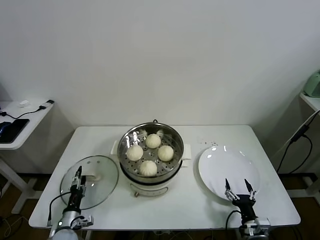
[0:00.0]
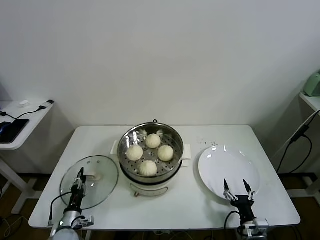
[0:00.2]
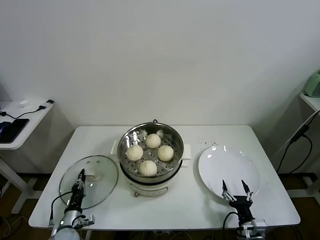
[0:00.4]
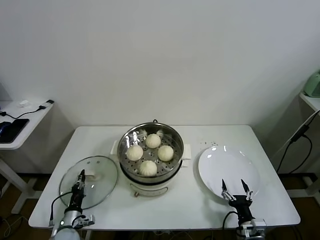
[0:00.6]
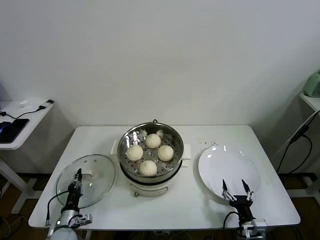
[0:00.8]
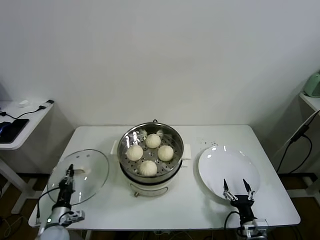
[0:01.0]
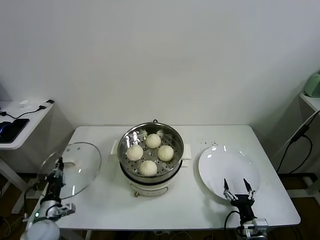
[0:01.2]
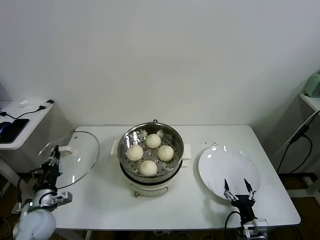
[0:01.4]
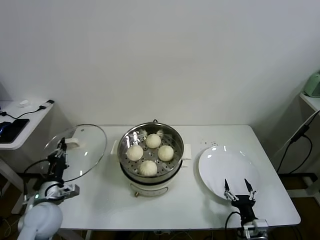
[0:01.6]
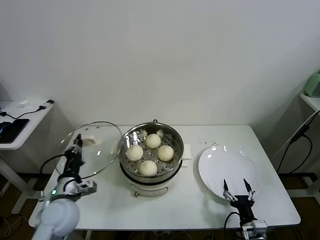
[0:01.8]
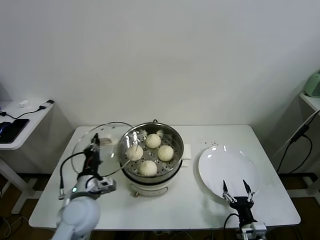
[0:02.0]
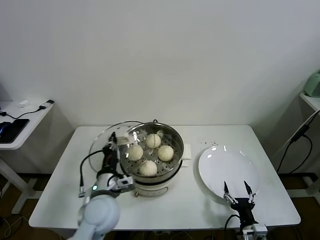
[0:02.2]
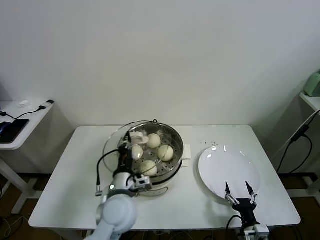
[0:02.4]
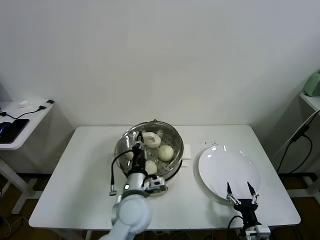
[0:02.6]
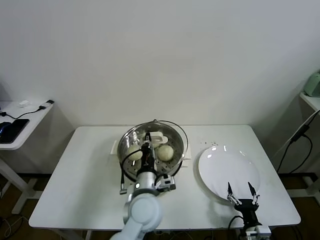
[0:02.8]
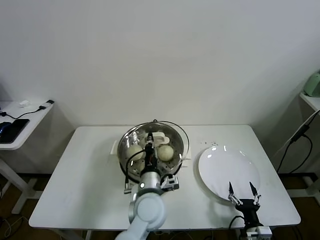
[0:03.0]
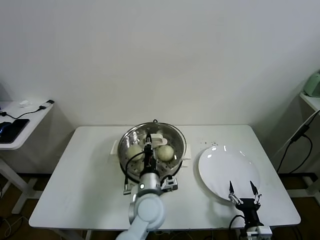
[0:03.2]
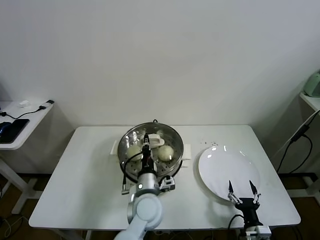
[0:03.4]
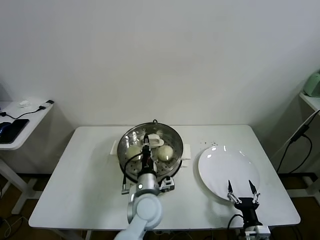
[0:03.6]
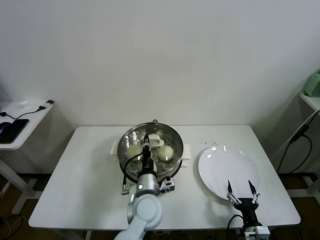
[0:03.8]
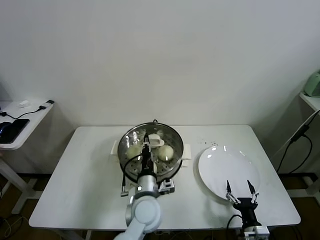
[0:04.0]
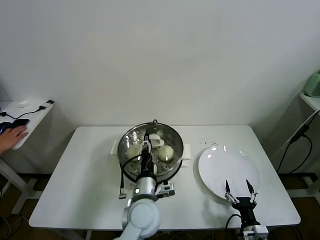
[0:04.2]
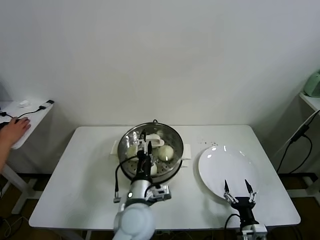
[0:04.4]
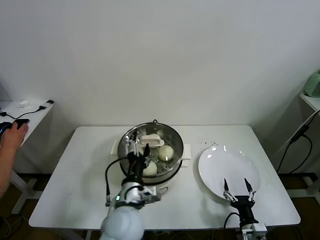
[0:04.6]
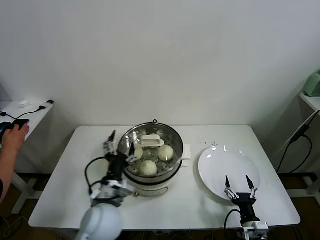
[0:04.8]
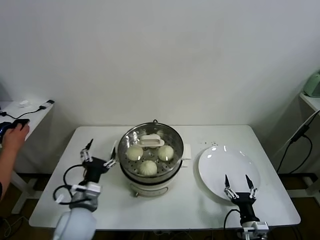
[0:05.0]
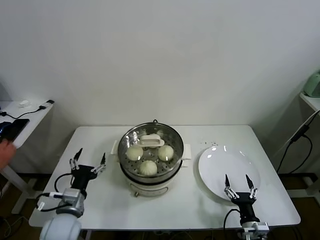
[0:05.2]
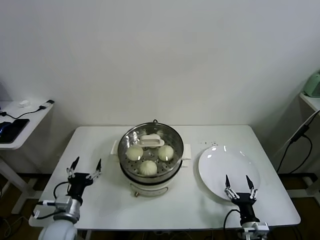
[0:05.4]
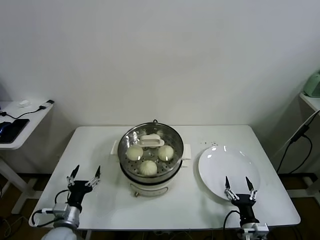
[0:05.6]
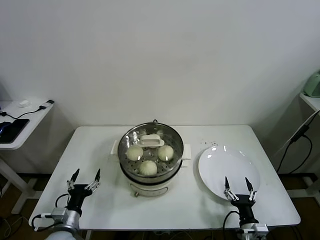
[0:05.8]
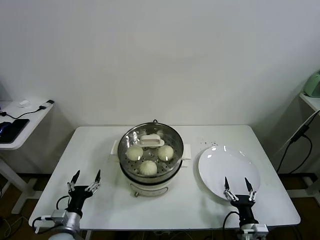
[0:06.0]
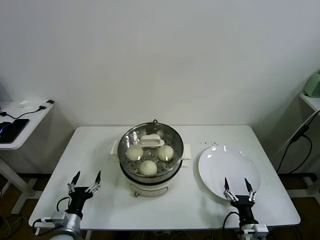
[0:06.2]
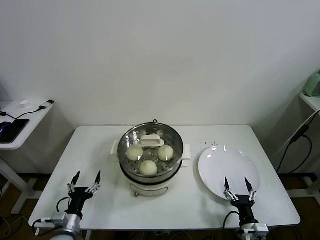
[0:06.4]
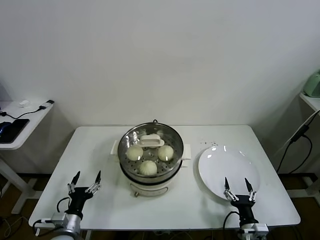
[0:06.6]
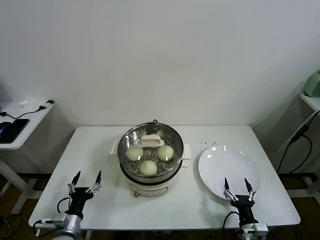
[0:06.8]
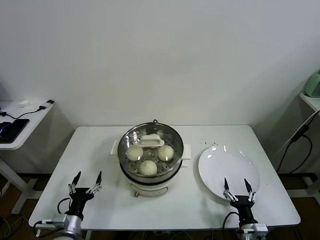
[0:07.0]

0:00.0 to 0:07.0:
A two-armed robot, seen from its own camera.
Task of the whole recording: take steamed baozi put them in steamer.
Step, 0:00.6 to 0:04.4: Place the pot lid on the steamer with left gripper.
0:00.0 to 0:01.4: The left gripper travels upward by some 15 cm, and closes.
0:01.4 to 0:02.8: The left gripper moves to the right, some 35 cm.
0:02.8 to 0:04.2: The left gripper opens its fingers.
0:04.2 to 0:05.6: The left gripper heads to the left, covering about 25 cm, and opens its fingers.
0:05.6 to 0:07.0: There are only small adjustments of the grippers.

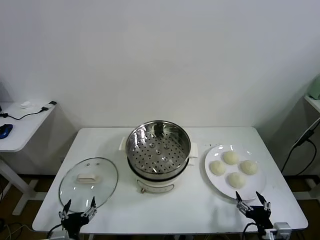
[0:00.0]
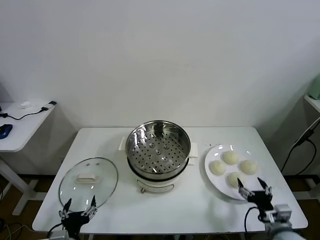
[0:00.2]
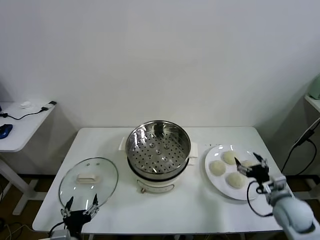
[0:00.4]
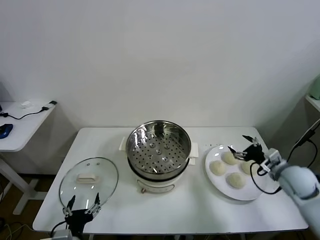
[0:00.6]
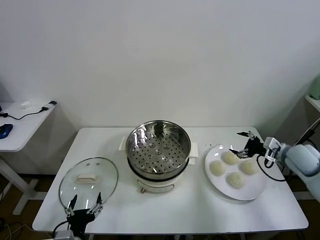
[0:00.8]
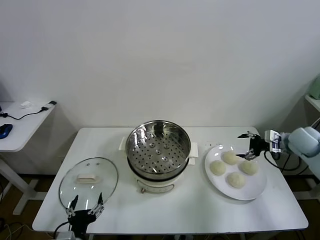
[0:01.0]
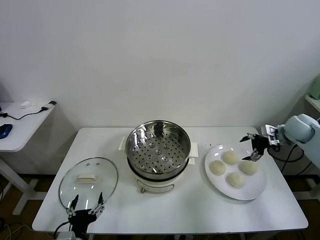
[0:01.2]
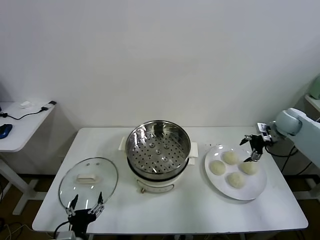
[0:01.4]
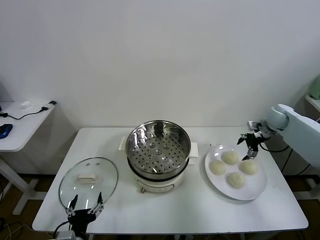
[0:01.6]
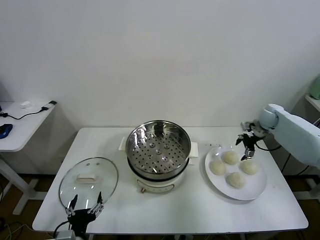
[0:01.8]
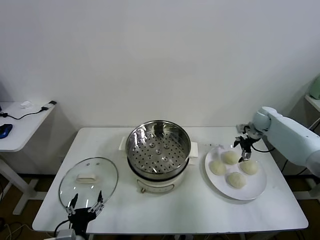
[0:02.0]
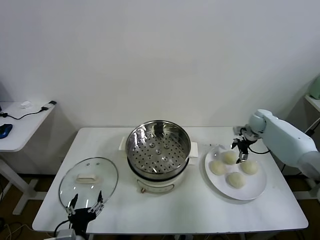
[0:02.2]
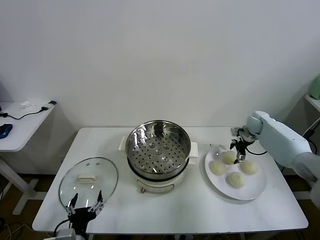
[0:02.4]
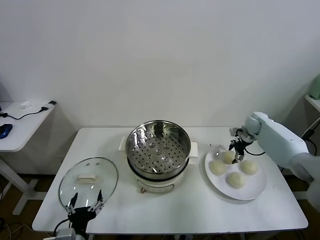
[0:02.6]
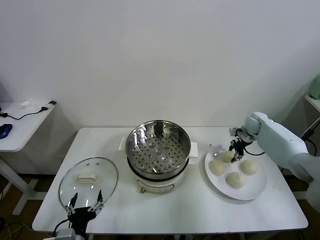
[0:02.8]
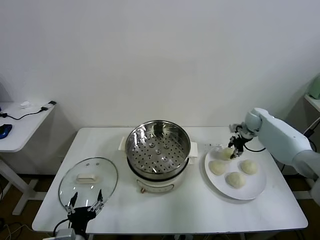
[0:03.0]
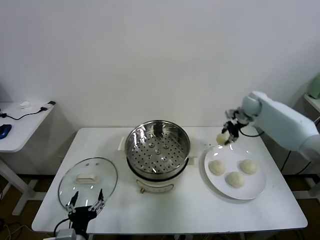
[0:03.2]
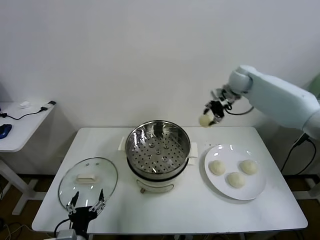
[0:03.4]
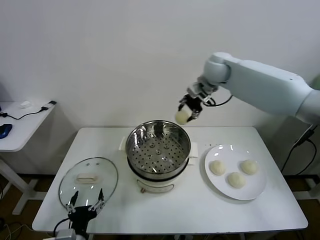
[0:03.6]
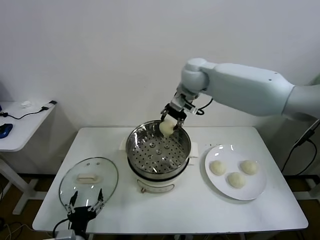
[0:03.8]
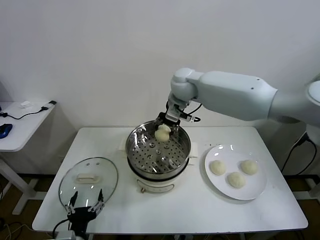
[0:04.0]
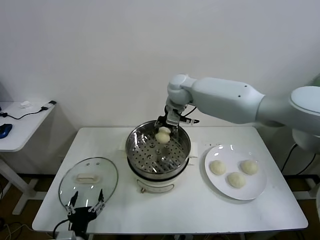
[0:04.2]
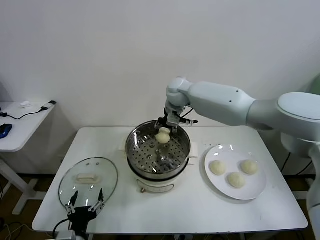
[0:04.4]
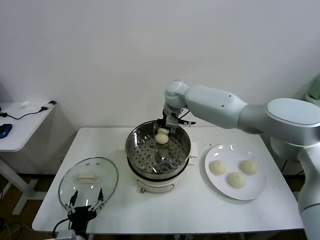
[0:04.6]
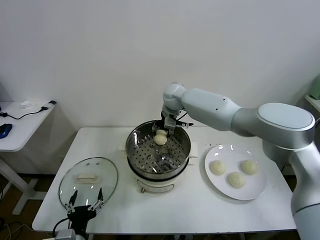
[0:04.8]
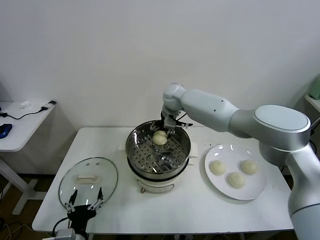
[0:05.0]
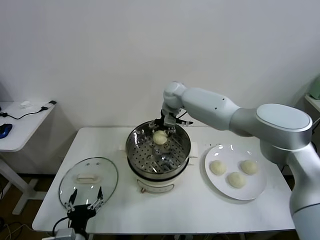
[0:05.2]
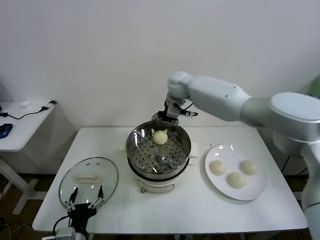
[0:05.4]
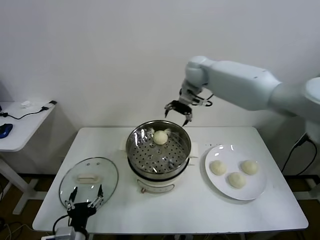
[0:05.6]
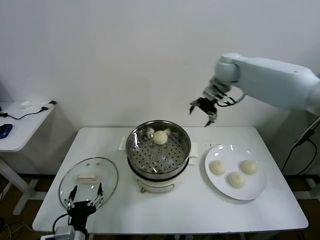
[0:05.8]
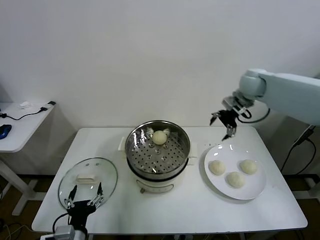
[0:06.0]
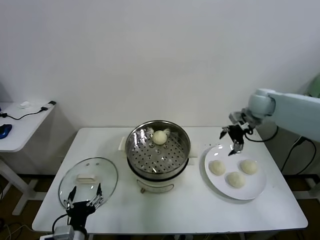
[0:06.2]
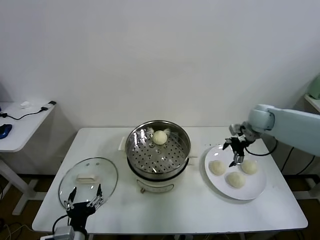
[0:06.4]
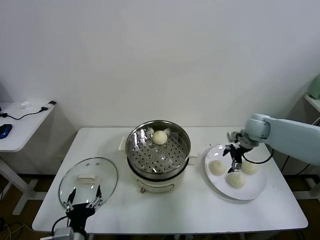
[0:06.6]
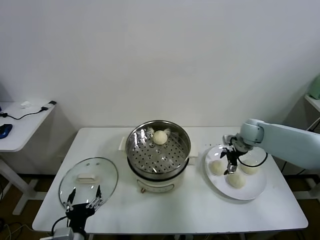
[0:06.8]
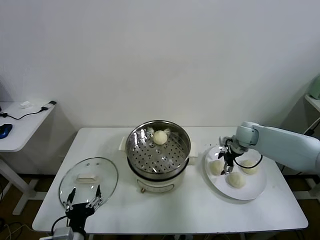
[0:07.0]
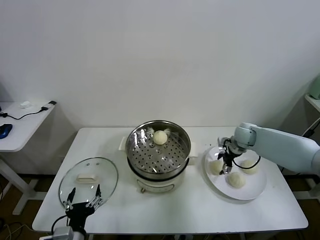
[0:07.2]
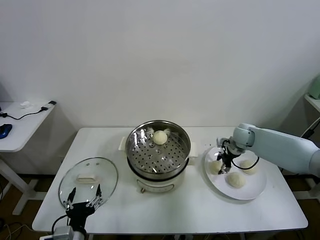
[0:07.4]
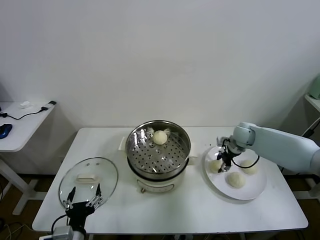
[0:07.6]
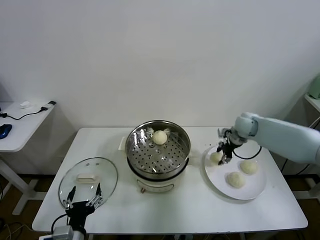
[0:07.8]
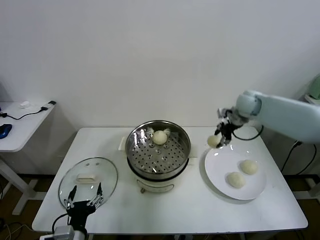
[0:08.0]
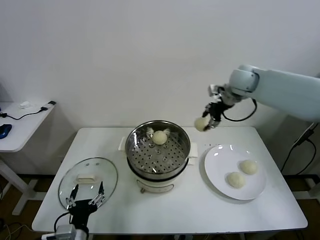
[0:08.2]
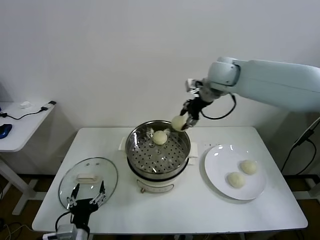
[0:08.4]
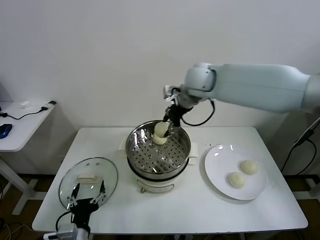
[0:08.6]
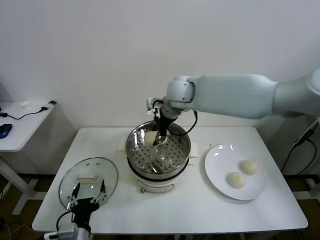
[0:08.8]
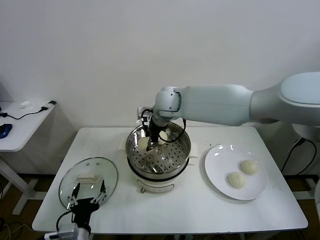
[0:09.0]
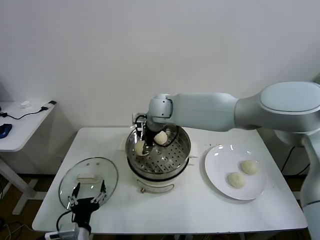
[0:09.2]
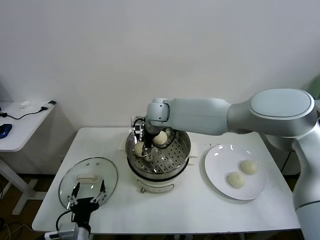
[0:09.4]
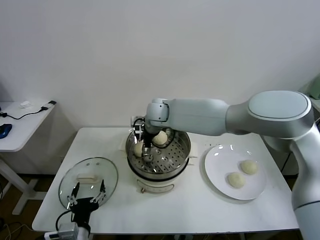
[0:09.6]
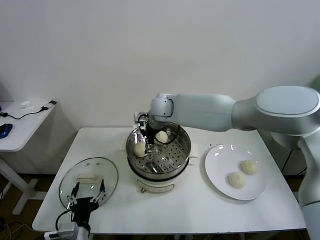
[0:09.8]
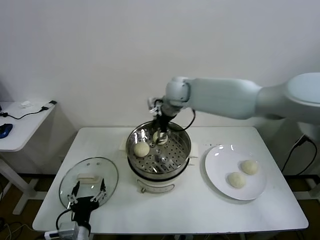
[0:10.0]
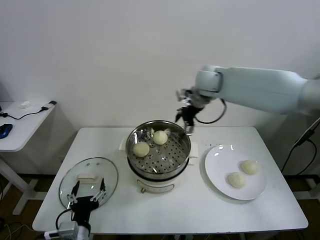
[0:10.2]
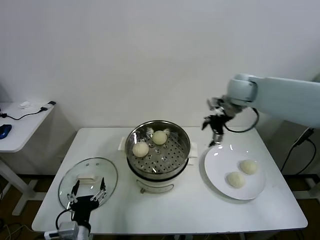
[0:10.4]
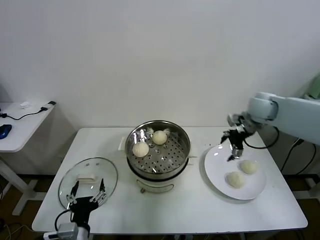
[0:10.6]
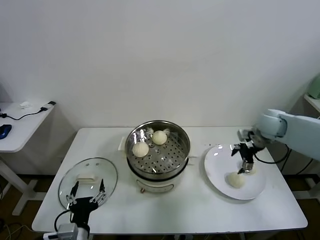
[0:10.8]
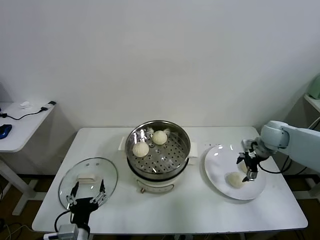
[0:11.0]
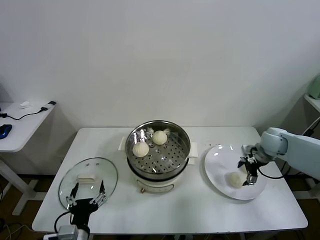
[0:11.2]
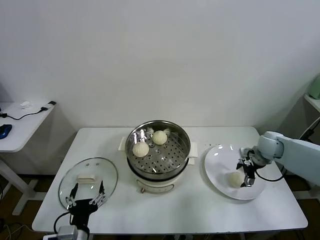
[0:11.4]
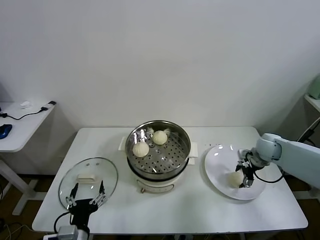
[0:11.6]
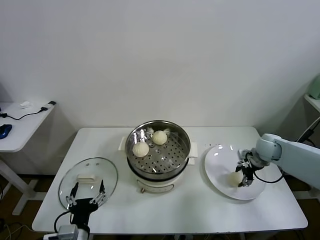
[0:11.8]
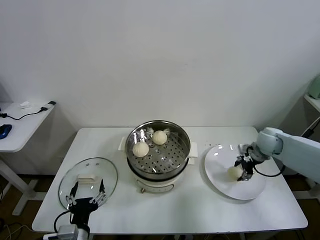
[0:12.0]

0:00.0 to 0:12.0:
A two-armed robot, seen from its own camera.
Task of the whole recording: take steamed baozi put them in steamer.
Step, 0:00.0 to 0:02.6: Grasp the baozi in the plate with right gripper.
Step, 0:02.8 to 0:05.0: Place the baozi on the steamer with right gripper.
Step, 0:05.2 to 0:07.2: Grasp the baozi in the plate with right gripper.
Step, 0:07.4 to 0:09.6: Place the baozi on the steamer with right gripper.
Step, 0:09.8 to 0:11.6: Grasp the baozi in the plate with right gripper.
0:01.6 to 0:03.0: The right gripper goes roughly 5 cm to the left, and closes.
0:03.0 to 0:04.4: The right gripper is displaced to the left by roughly 35 cm.
0:04.4 to 0:06.0: The right gripper moves to the right, about 25 cm, and opens its fingers.
0:06.0 to 0:07.6: The right gripper heads downward, covering approximately 15 cm, and closes.
0:07.6 to 0:09.0: The right gripper moves to the left and upward, some 35 cm.
0:09.0 to 0:10.4: The right gripper shifts roughly 25 cm to the right, and opens its fingers.
0:10.4 to 0:12.0: The right gripper shifts roughly 20 cm downward and to the right, and closes.

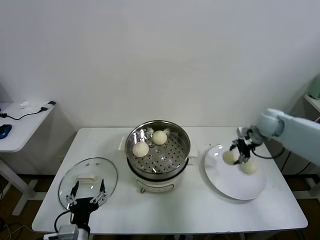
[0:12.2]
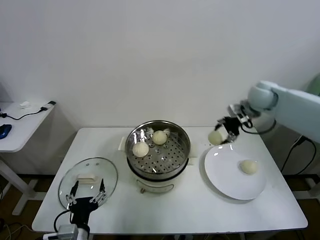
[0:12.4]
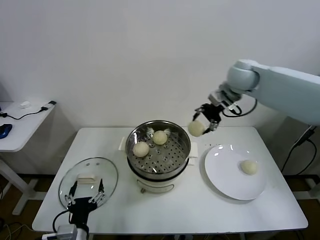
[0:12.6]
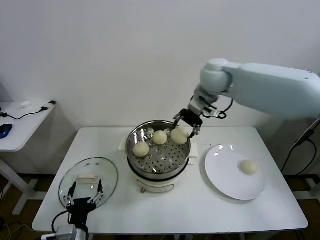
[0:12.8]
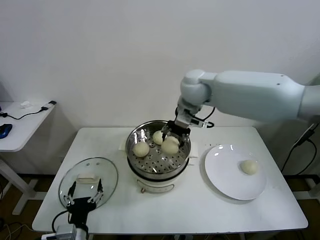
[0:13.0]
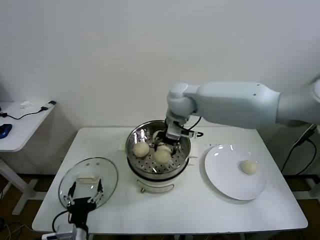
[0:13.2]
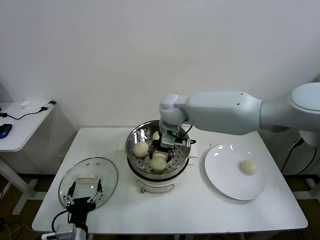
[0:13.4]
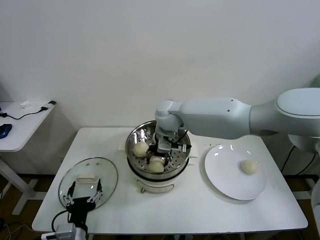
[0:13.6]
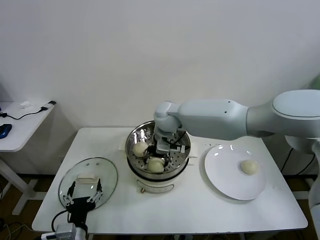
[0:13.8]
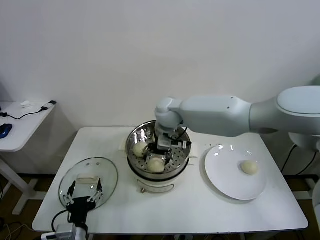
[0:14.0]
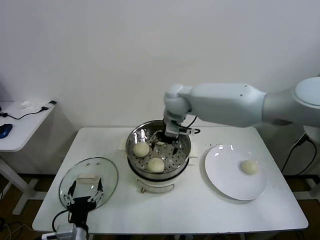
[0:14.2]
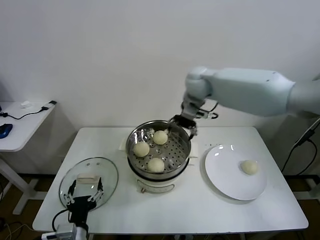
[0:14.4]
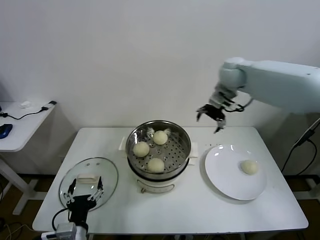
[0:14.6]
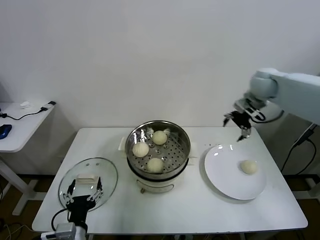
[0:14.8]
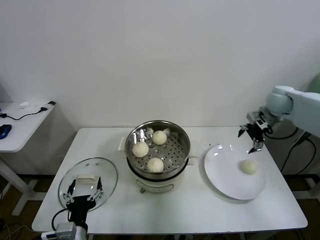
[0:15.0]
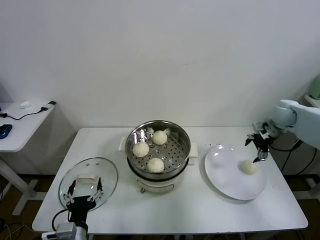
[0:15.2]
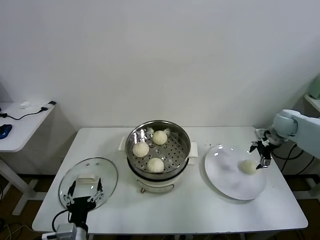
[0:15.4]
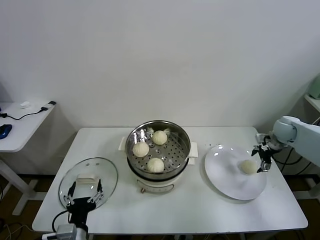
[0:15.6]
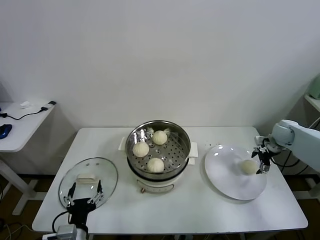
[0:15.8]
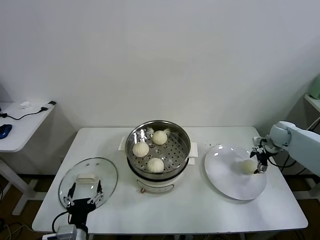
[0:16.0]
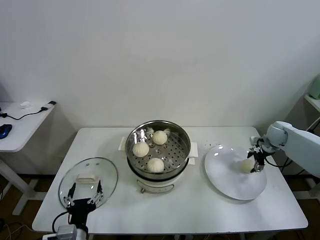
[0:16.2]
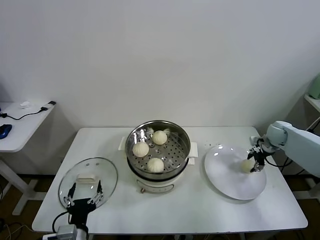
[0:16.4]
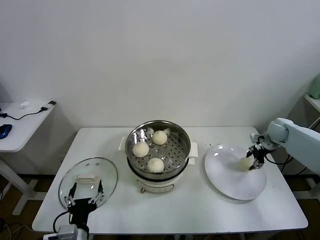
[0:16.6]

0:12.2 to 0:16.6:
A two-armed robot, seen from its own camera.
Task of the whole recording: take steamed baozi put them in steamer.
Step, 0:12.2 to 0:13.8: Place the baozi on the steamer with right gripper.
Step, 0:14.0 to 0:16.2: Grasp the baozi in the plate with right gripper.
0:12.2 to 0:13.6: The right gripper moves to the left, roughly 35 cm.
0:13.6 to 0:15.2: The right gripper moves to the right, some 40 cm, and opens up.
0:15.2 to 0:16.6: The right gripper goes some 10 cm downward, and closes its fingers.
